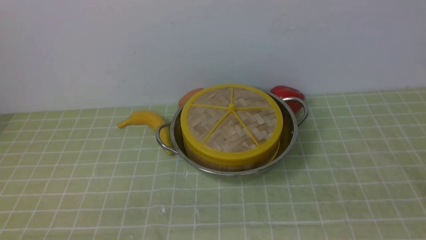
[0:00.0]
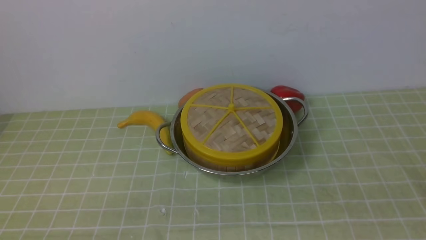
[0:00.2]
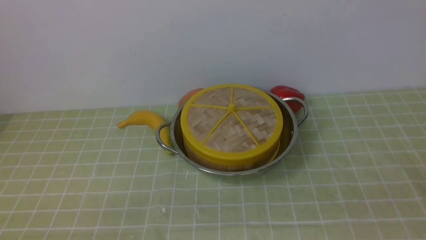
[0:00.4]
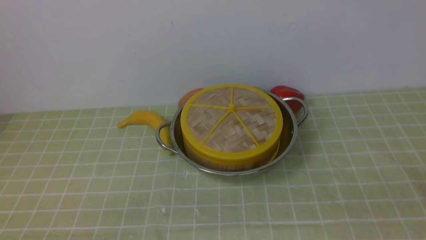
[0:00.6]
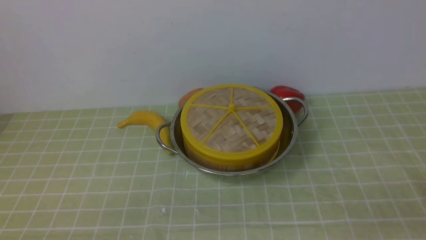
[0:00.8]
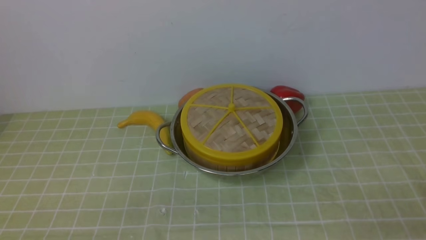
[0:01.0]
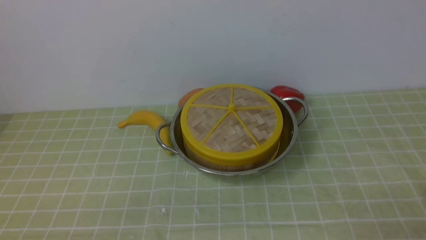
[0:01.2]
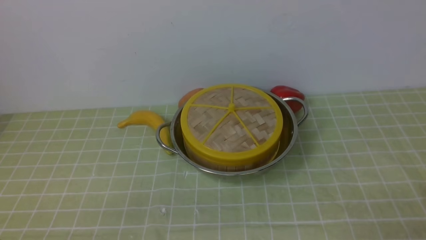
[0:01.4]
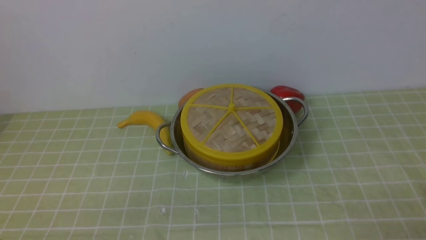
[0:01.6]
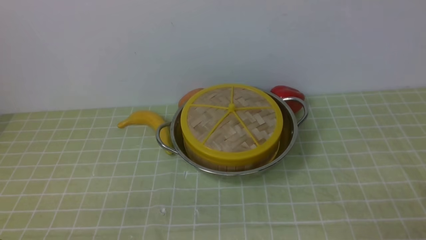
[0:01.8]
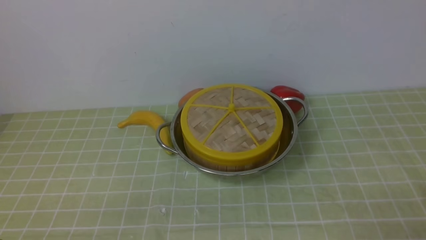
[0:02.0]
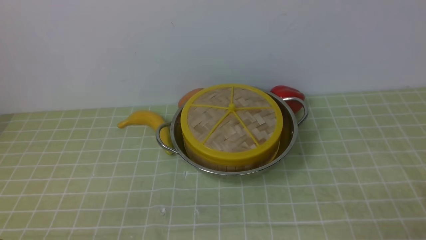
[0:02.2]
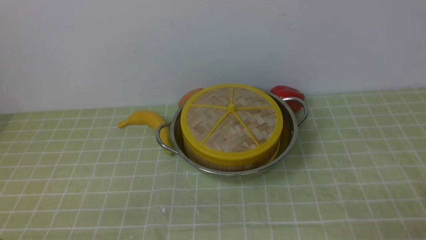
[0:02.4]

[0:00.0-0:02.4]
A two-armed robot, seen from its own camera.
Task of the whole recording: place the steamer in the pot on the green tablecloth, and put the lid on the steamer.
0:01.2 to 0:02.4: The two grippers keep their place.
